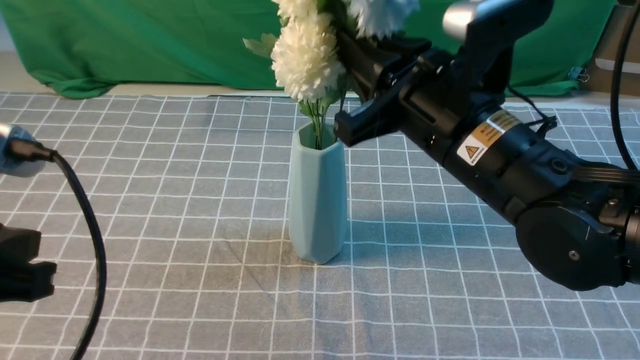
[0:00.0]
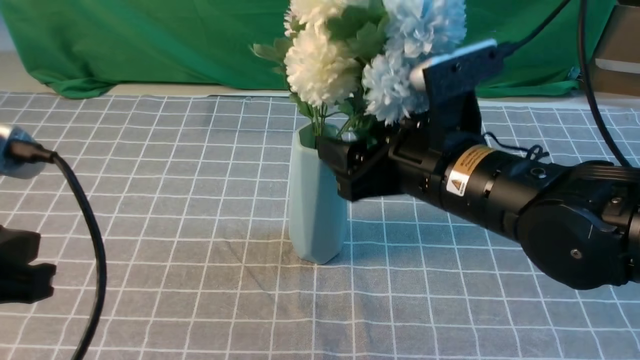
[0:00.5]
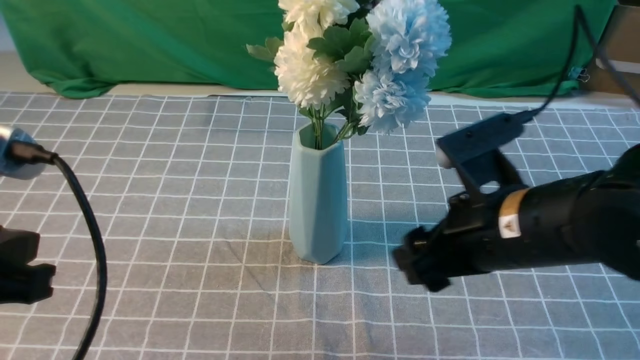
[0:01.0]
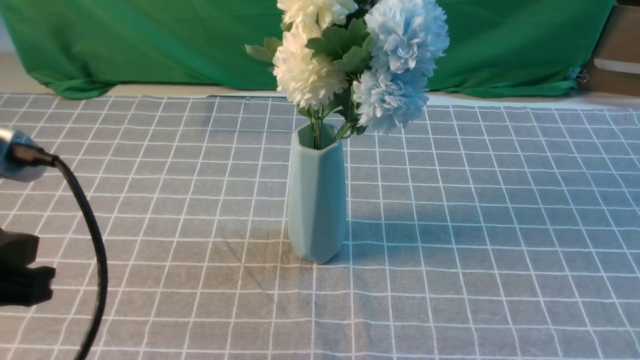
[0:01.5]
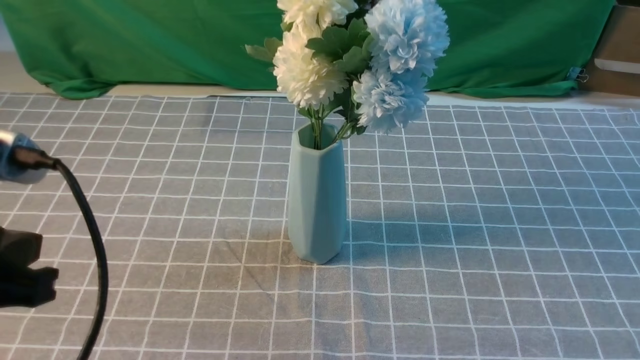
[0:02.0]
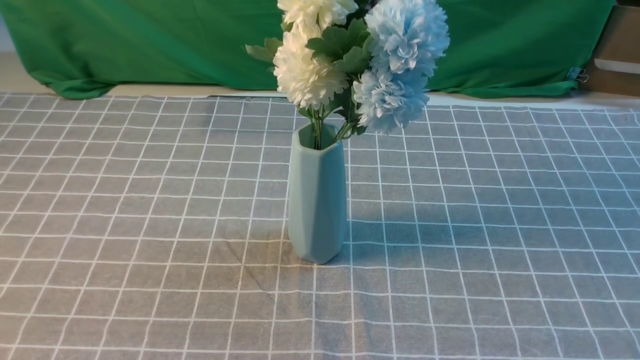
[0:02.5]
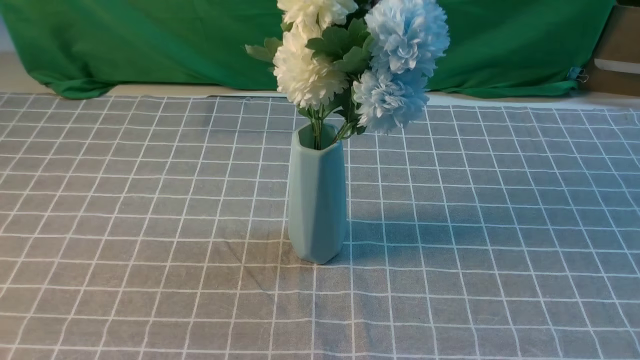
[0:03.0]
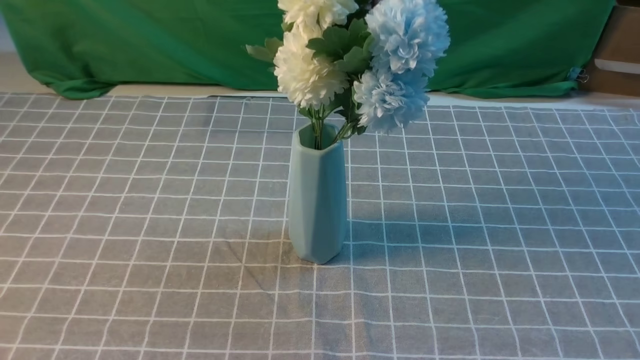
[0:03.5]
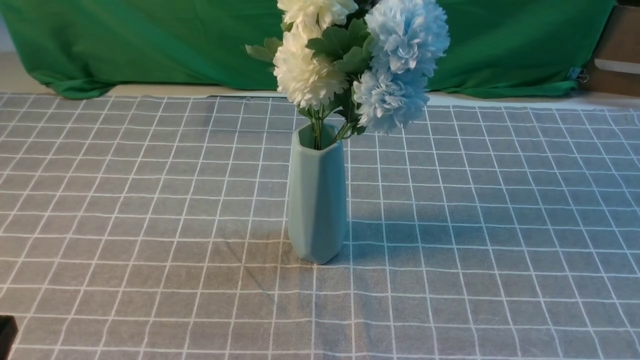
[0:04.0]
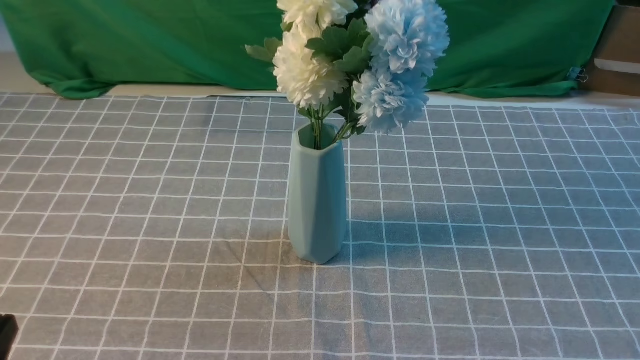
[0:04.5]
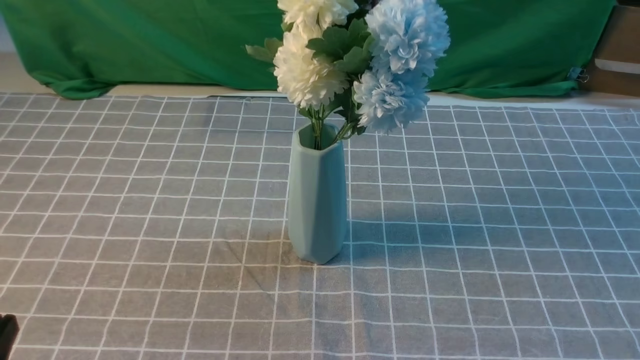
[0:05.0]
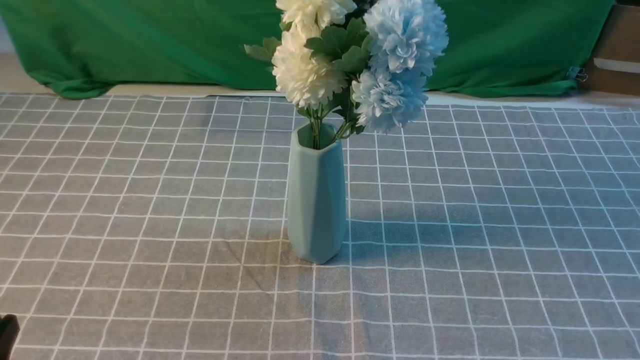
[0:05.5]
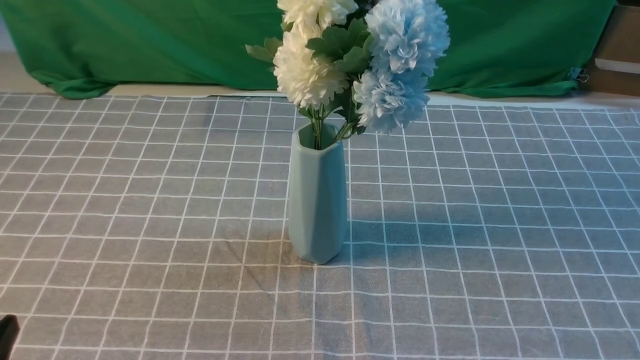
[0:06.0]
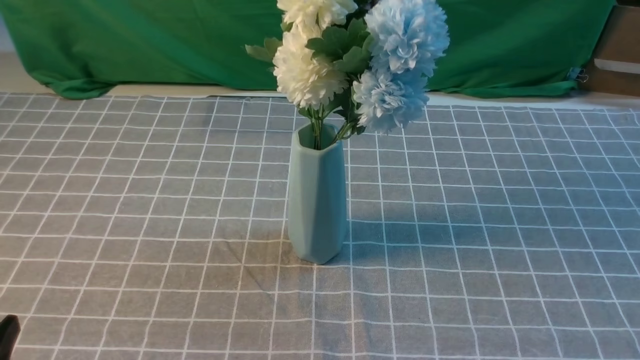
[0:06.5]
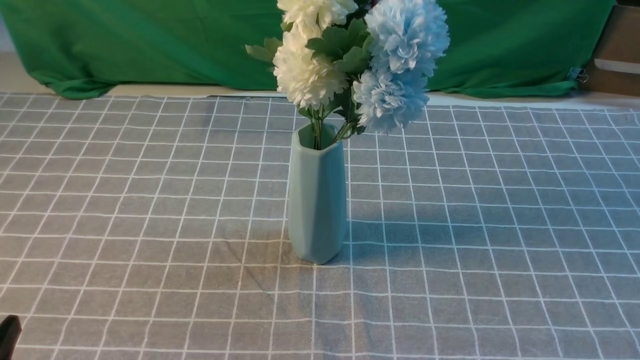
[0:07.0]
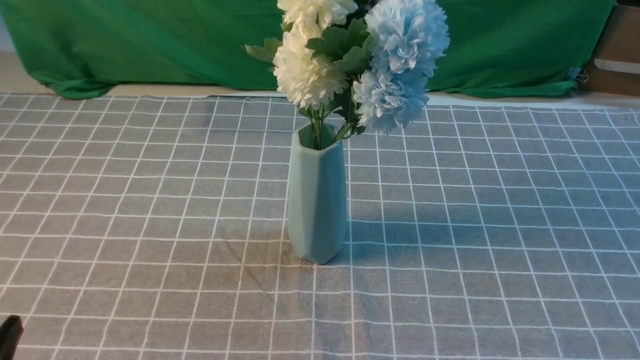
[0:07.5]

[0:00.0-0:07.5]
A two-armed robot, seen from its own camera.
Task of the whole recording: insert the flowers into the vase on the table with the grey tablecloth.
0:00.0 to 0:02.0: The right gripper moves backward and to the right, approximately 35 cm, and opens, then closes once more.
0:02.0 to 0:04.0: The left gripper moves downward and backward, about 15 cm.
